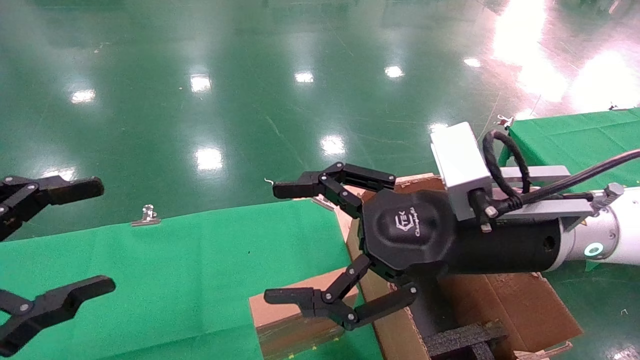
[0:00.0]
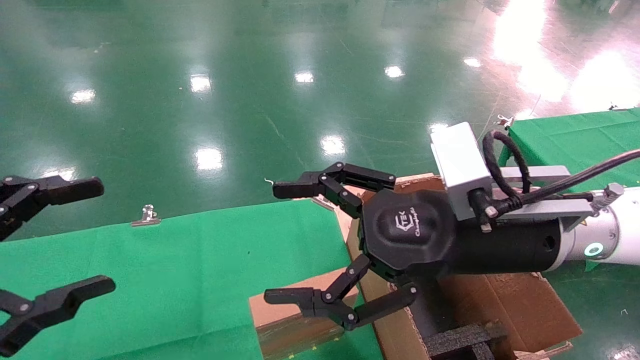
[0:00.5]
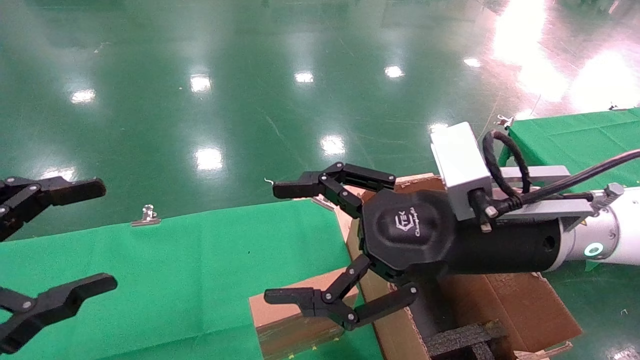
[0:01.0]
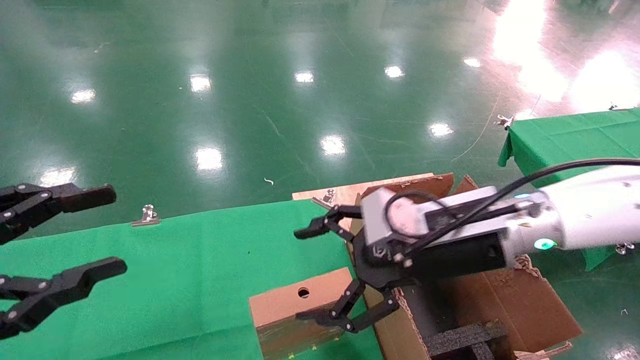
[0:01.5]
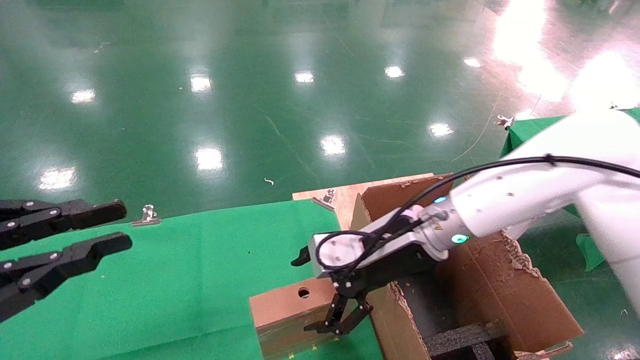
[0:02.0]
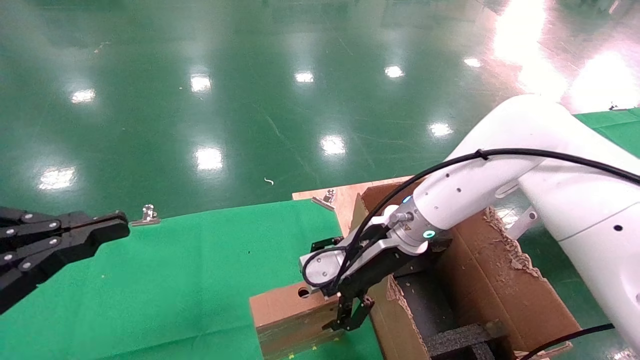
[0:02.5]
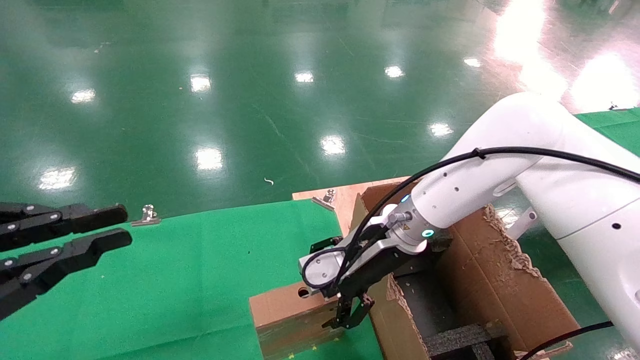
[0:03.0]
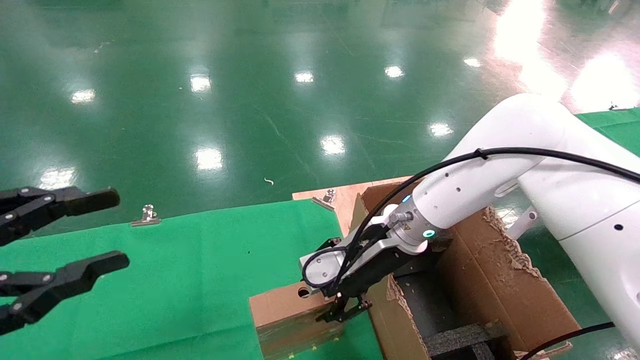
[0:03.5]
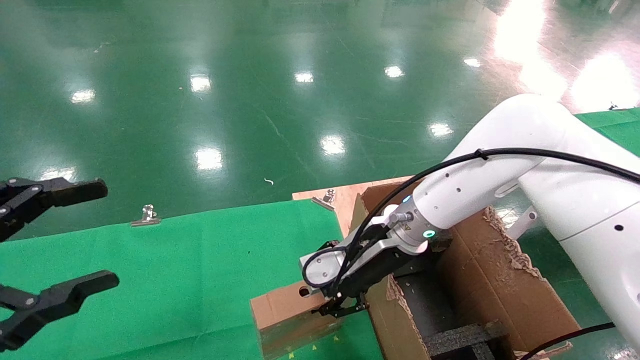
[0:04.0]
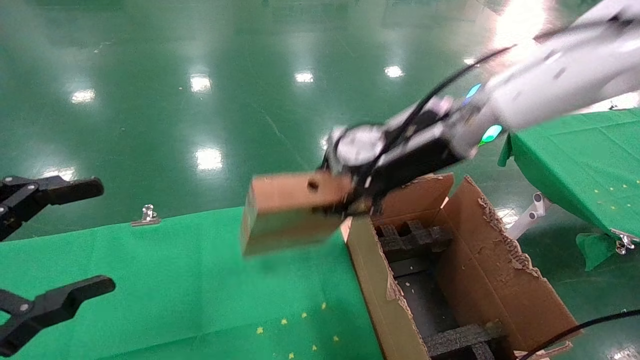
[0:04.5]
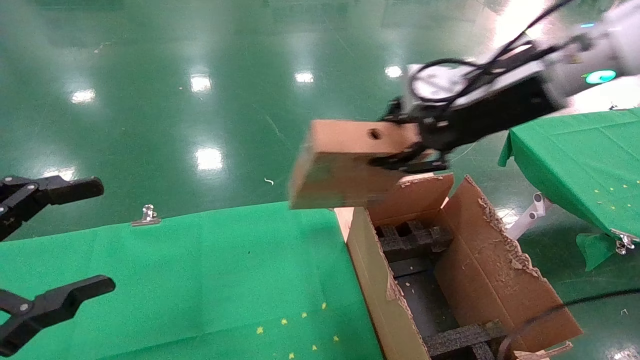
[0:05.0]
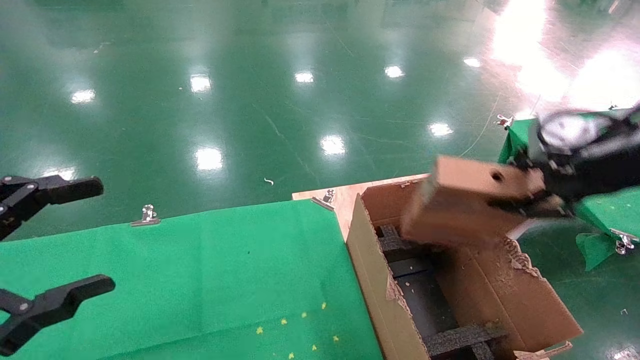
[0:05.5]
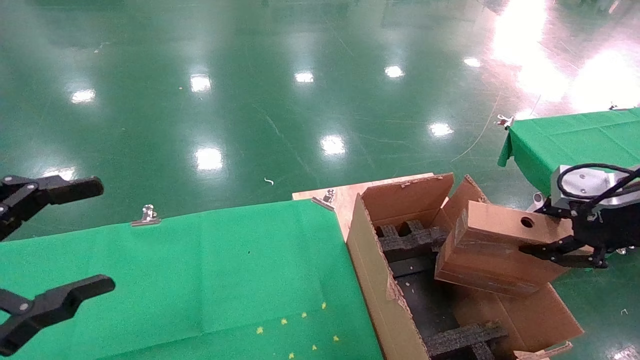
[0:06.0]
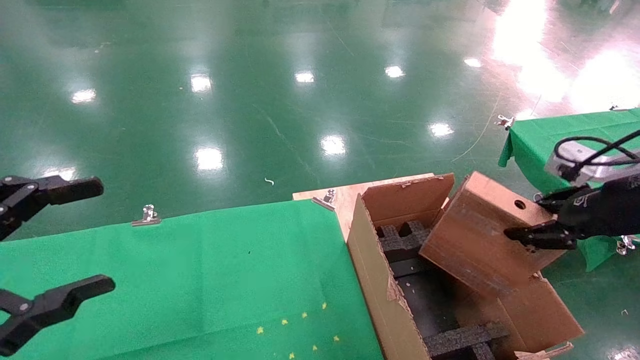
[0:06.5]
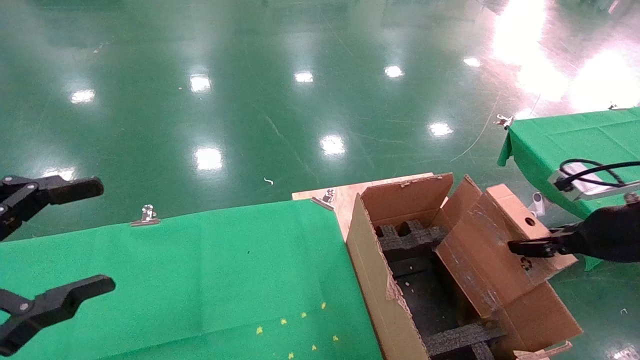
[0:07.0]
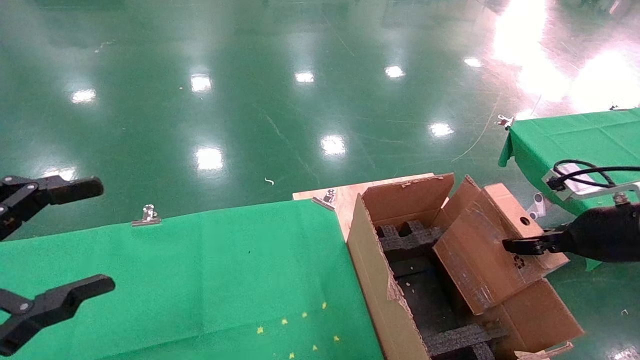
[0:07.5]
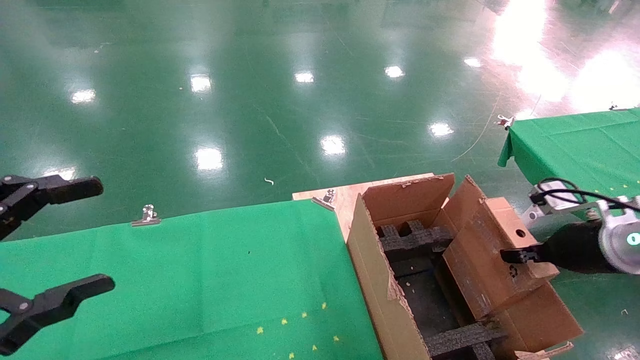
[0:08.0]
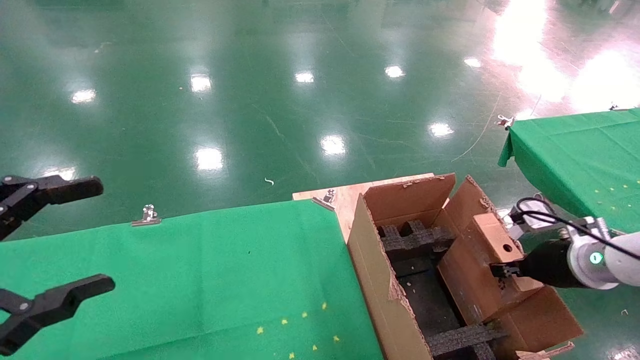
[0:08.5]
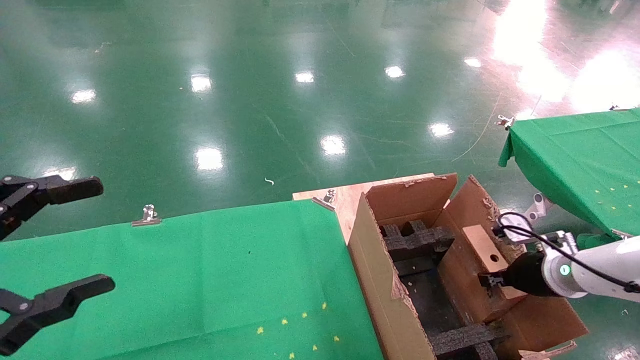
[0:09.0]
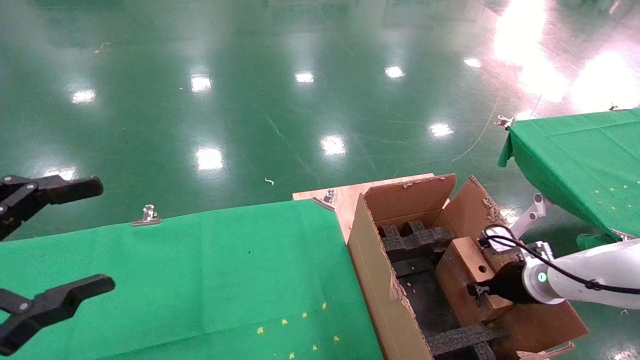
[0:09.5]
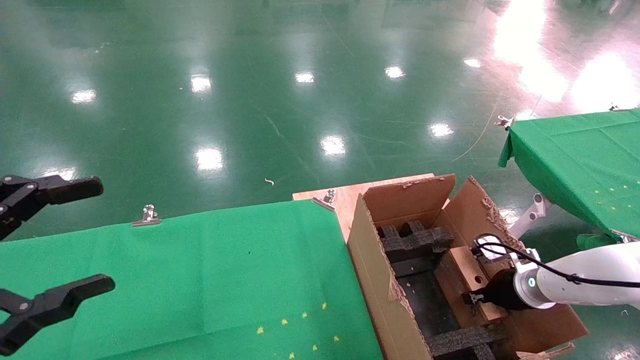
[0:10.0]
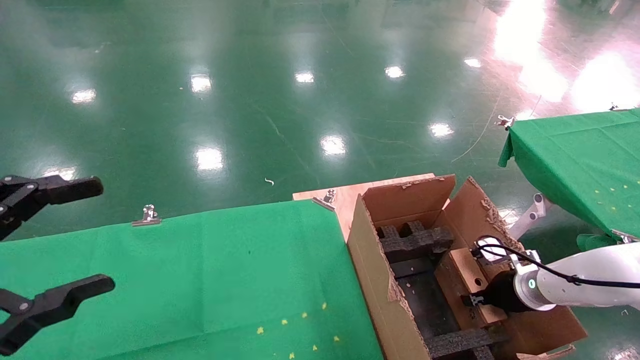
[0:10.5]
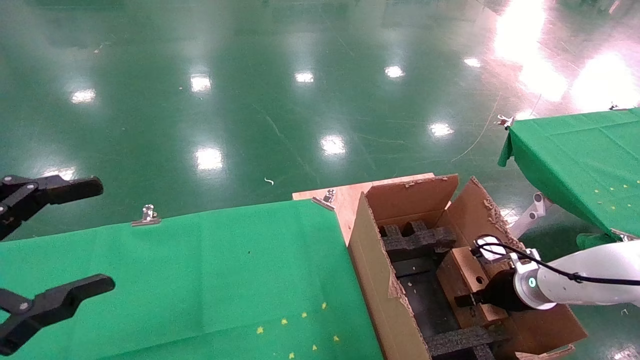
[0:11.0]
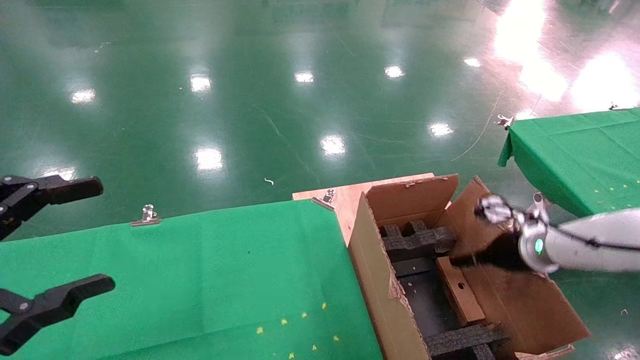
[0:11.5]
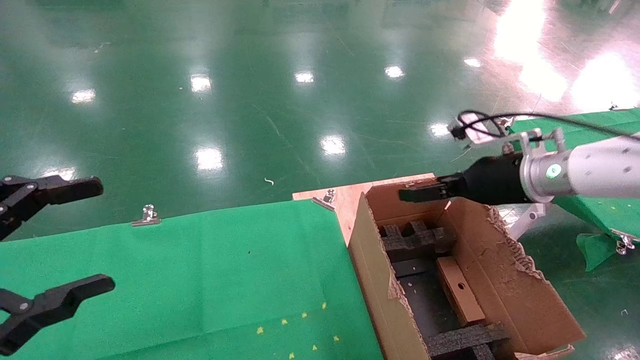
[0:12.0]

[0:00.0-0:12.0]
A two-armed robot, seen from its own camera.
Task of the whole recording: using a robotic arm to pick up a cardboard box and palace it the carton.
Step, 0:01.5 to 0:03.5: Pick up the mouse and the power cord paper box.
Step, 0:04.0 to 0:11.5: Place the mouse and the power cord paper box into the container.
0:00.0 to 0:02.0: The right gripper moves forward and downward, about 15 cm, while the left gripper closes up.
0:02.0 to 0:04.0: The left gripper opens, while the right gripper closes.
0:04.0 to 0:06.0: The right gripper heads to the right and backward, covering approximately 30 cm.
0:06.0 to 0:08.0: The right gripper shifts roughly 15 cm downward and forward.
0:08.0 to 0:10.0: The right gripper is displaced downward and forward by about 15 cm.
0:10.0 to 0:12.0: The right gripper travels upward by approximately 20 cm, and opens.

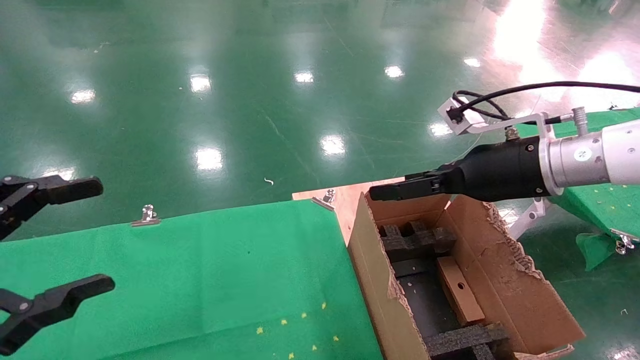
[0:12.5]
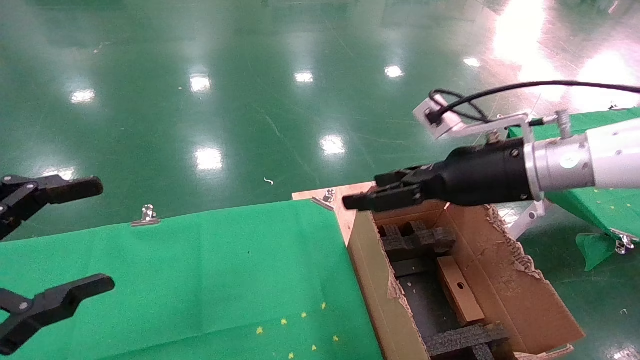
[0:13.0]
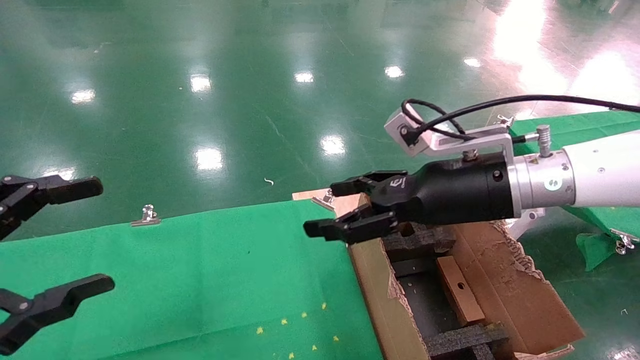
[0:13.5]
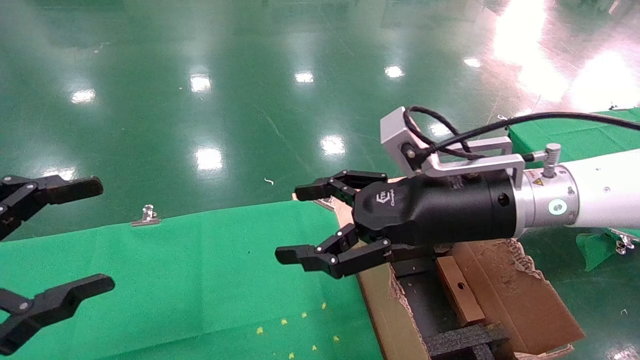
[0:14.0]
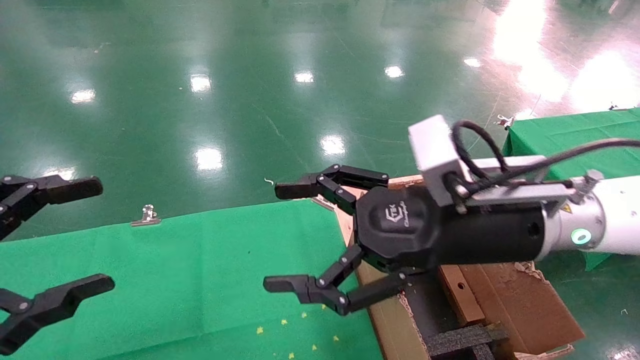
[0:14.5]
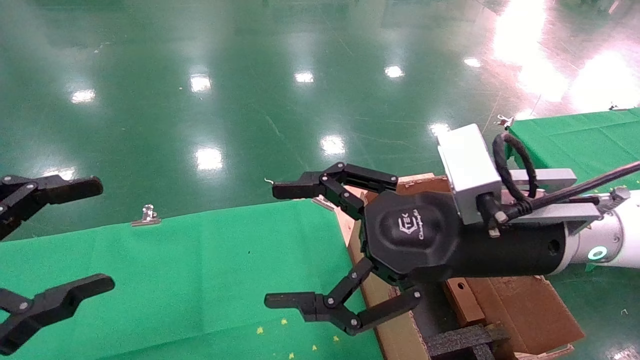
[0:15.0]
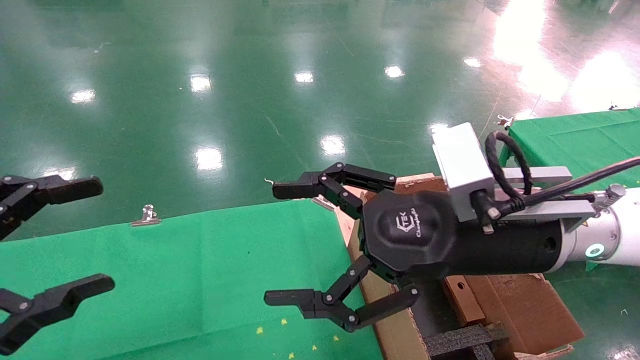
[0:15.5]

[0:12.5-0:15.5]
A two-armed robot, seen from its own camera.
Task of the whole recording: using a robotic arm to pick up a cardboard box and palace it the carton.
0:12.5 to 0:14.0: The right gripper shifts about 10 cm to the left.
